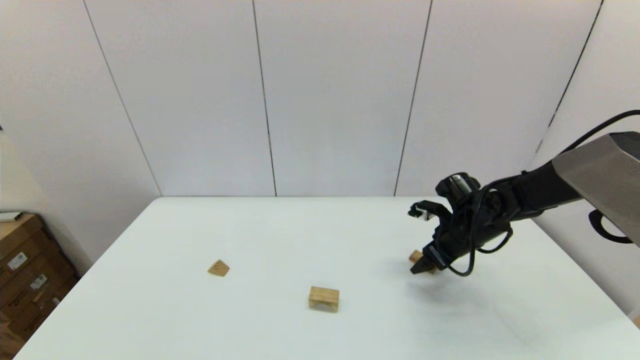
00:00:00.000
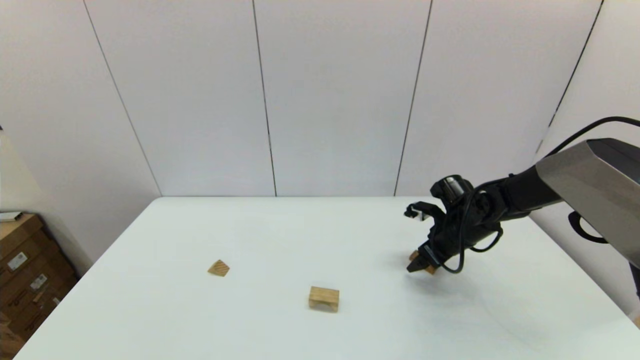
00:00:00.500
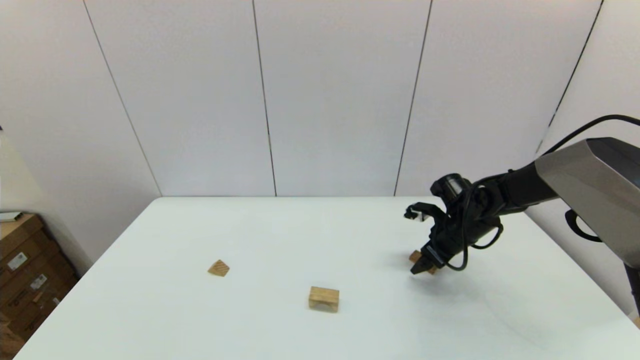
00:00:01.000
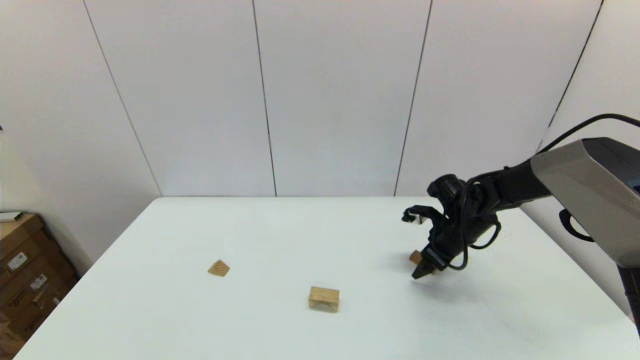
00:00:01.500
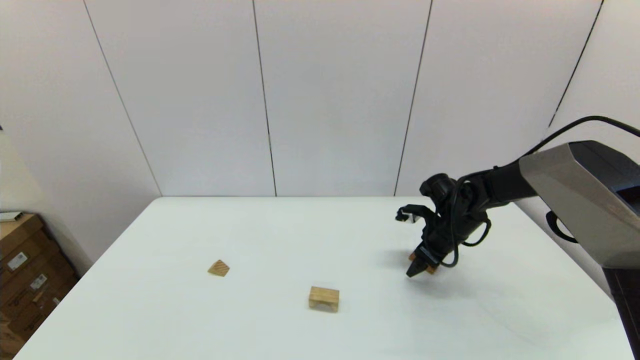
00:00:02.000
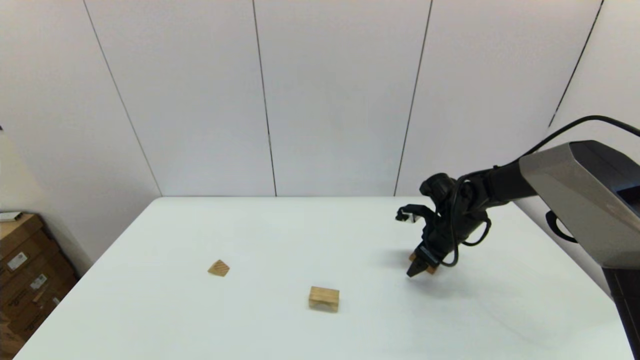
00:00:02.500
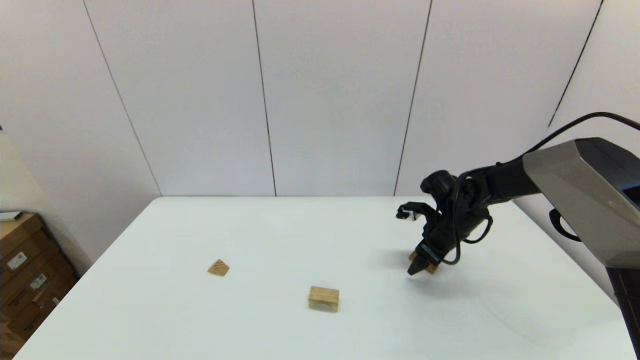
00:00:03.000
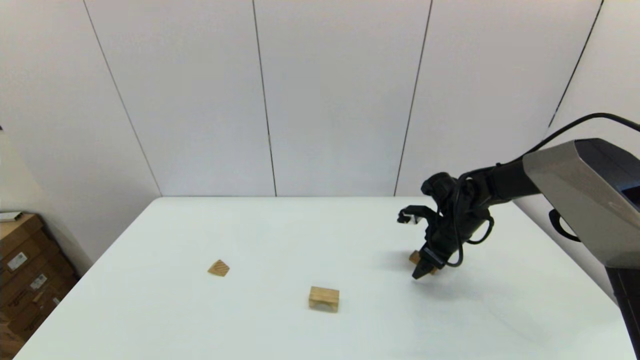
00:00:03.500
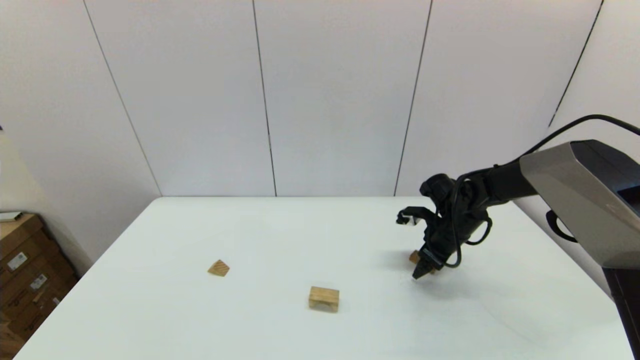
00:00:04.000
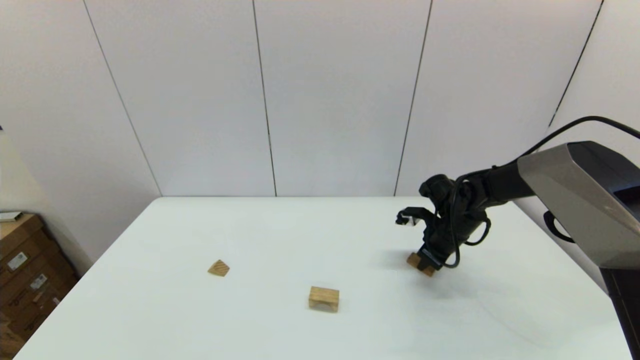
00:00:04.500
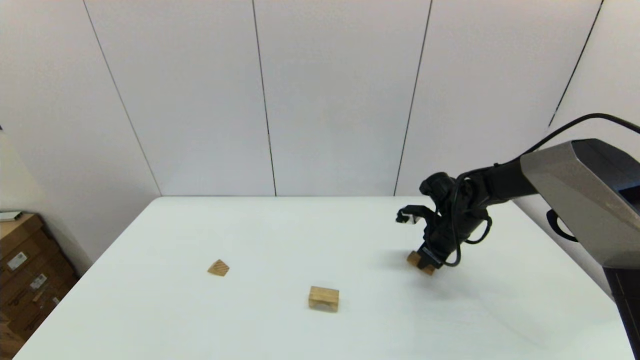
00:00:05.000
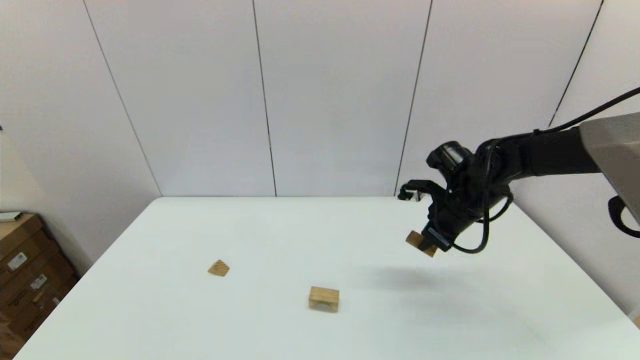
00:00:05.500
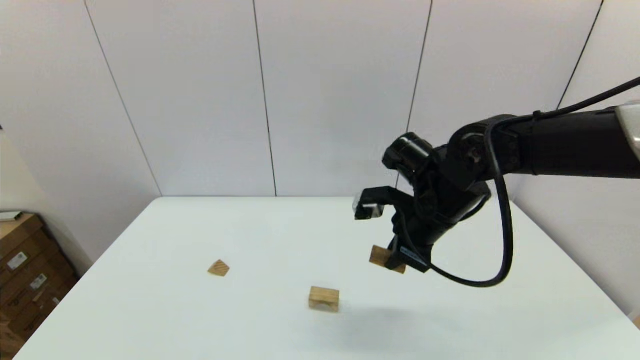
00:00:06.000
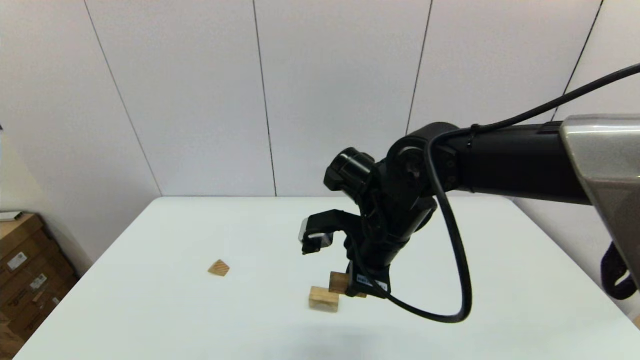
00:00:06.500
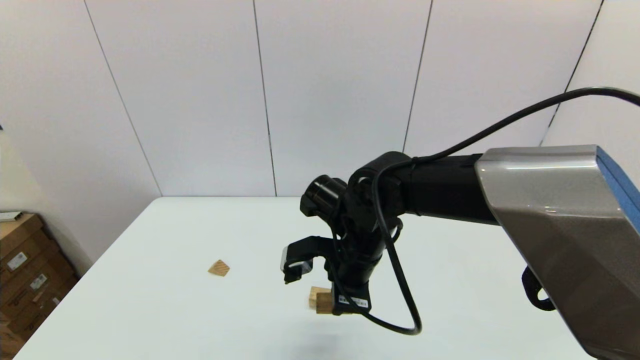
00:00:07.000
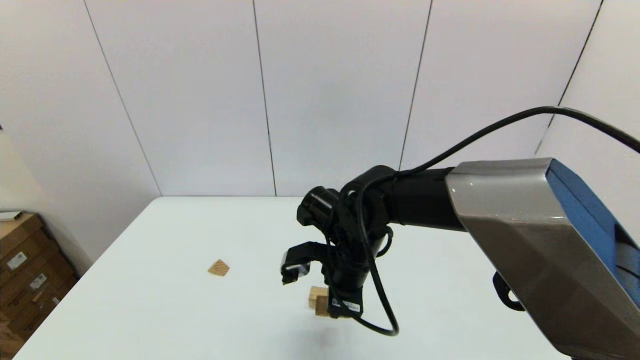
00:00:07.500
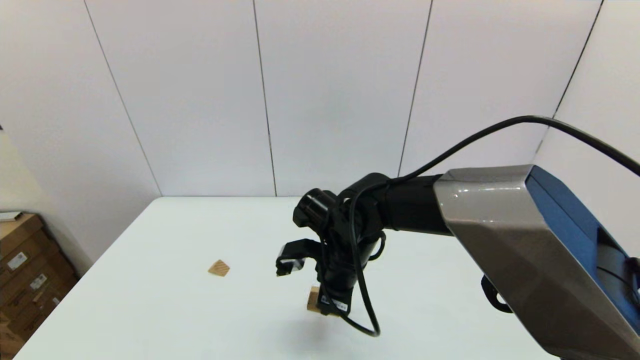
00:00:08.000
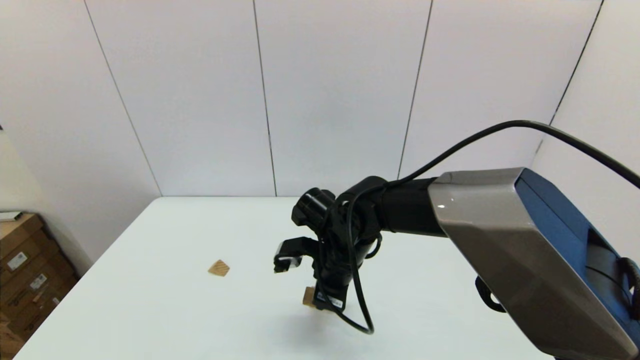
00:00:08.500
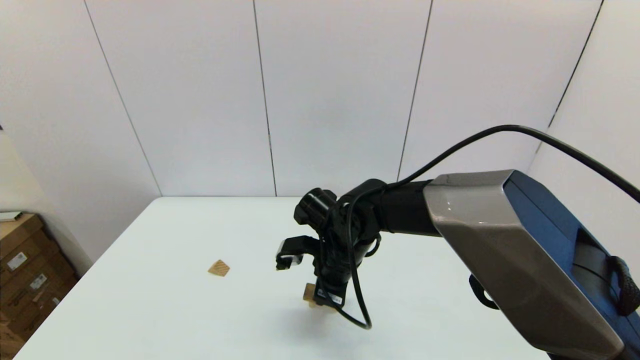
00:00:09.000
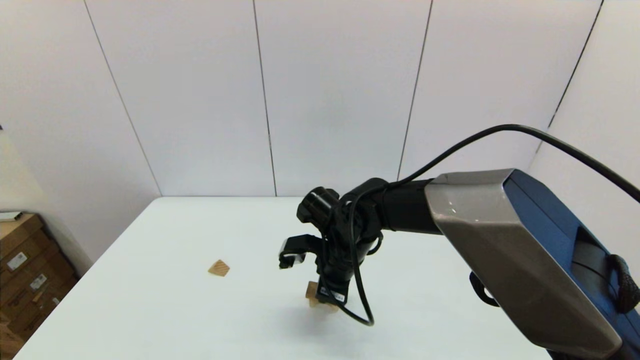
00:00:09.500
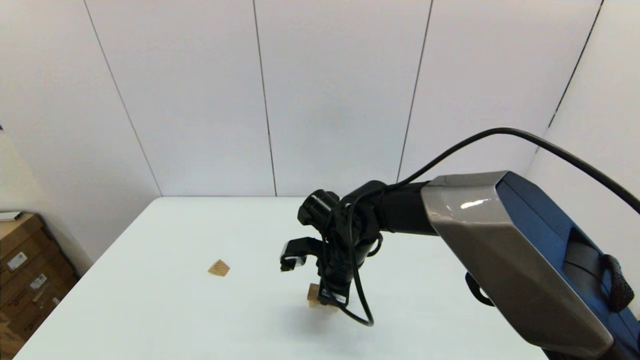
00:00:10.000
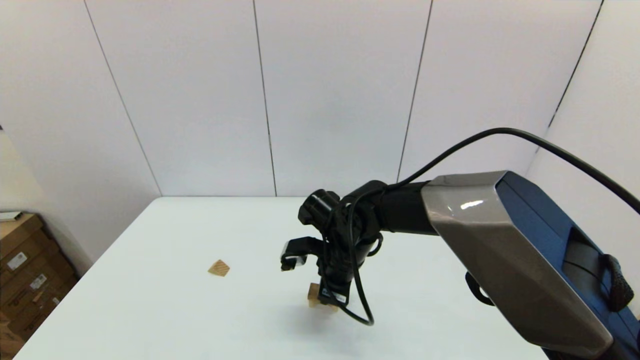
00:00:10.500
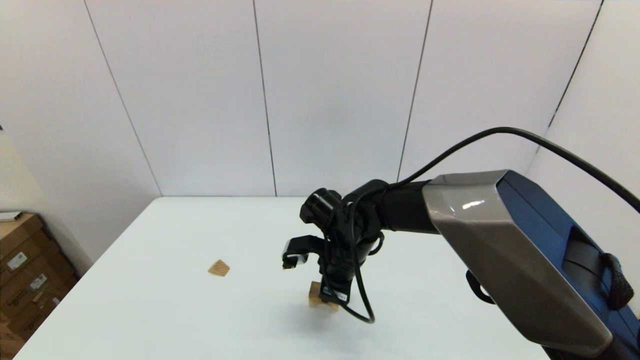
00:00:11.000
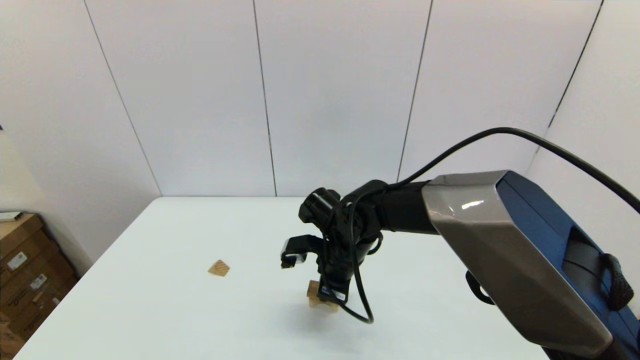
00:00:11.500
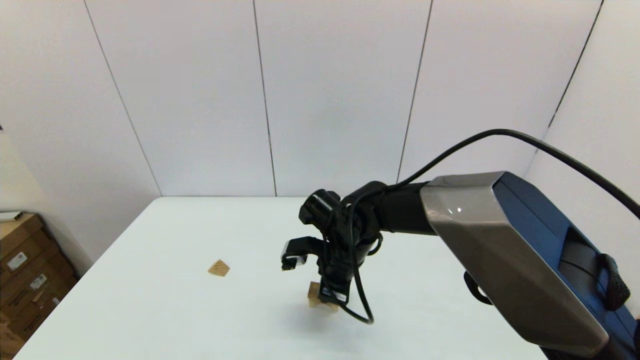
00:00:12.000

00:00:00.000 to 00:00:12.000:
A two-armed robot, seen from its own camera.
Task of the whole recording: place the arched building blocks in the center of the table, set up the rectangular building blocks, and then set up the triangular building blocks.
Step, 00:00:00.000 to 00:00:04.500: Grasp the box-shaped block with the right gripper.
00:00:00.000 to 00:00:02.000: There are only small adjustments of the grippers.
00:00:02.000 to 00:00:04.000: The two grippers keep their place.
00:00:04.000 to 00:00:06.000: The right gripper travels upward, to the left and backward by about 20 cm, and closes up.
00:00:06.000 to 00:00:08.000: The right gripper moves to the left and downward, roughly 15 cm.
00:00:08.000 to 00:00:10.000: There are only small adjustments of the grippers.
00:00:10.000 to 00:00:12.000: Neither gripper changes place.

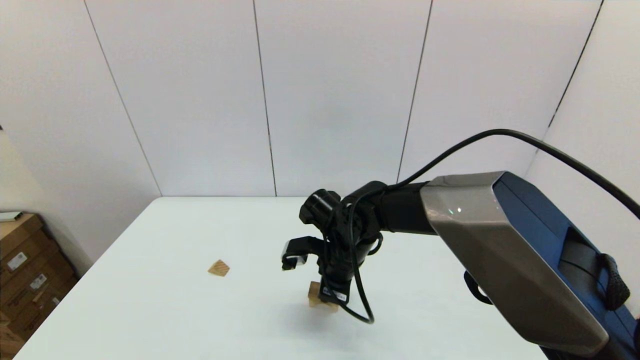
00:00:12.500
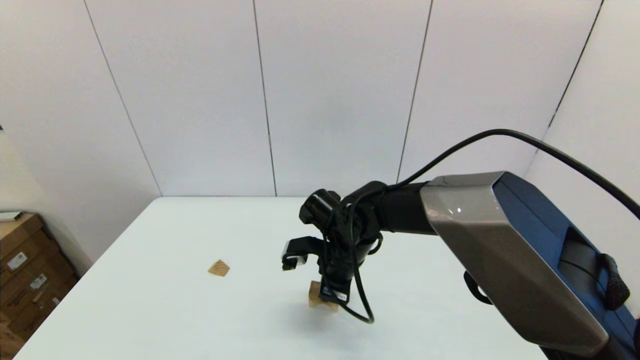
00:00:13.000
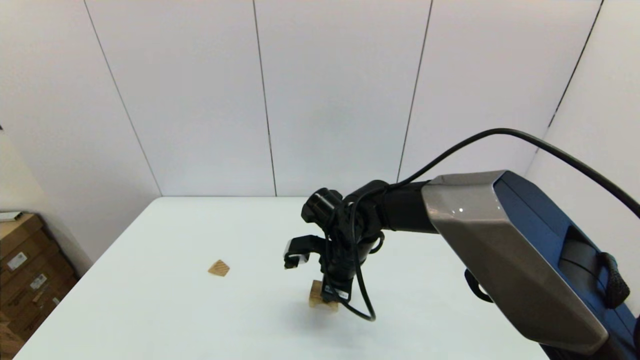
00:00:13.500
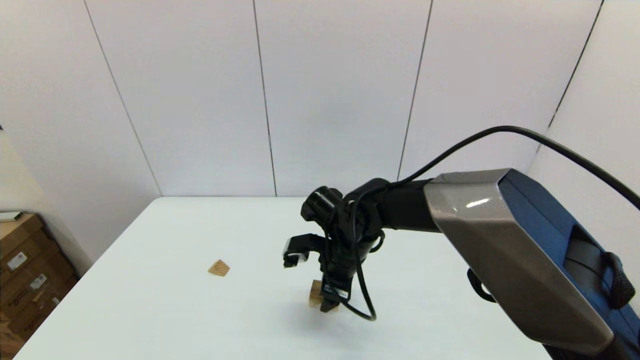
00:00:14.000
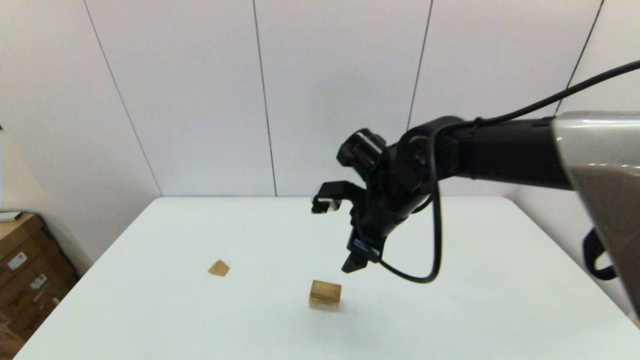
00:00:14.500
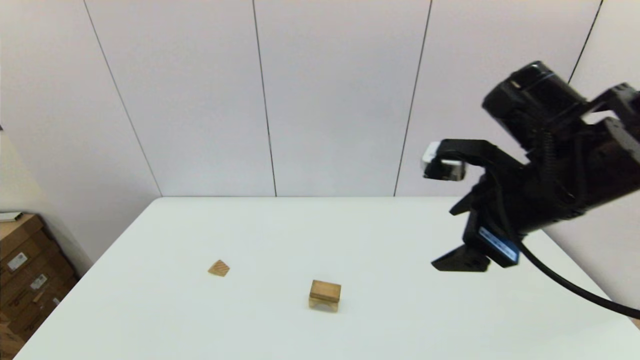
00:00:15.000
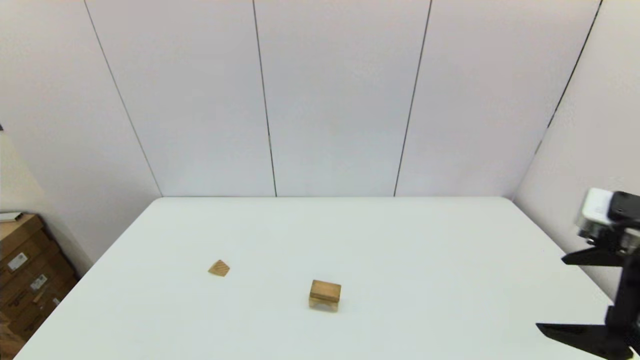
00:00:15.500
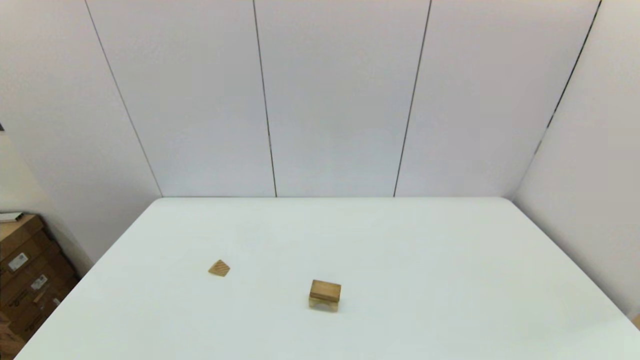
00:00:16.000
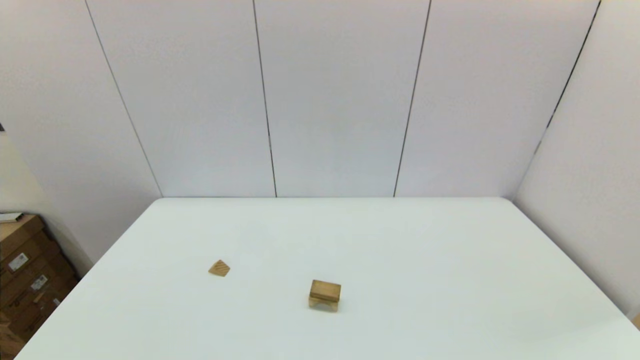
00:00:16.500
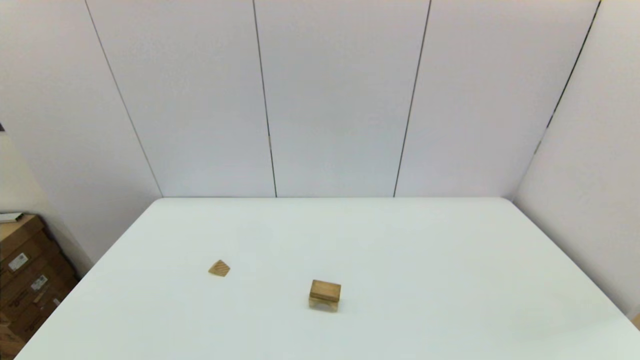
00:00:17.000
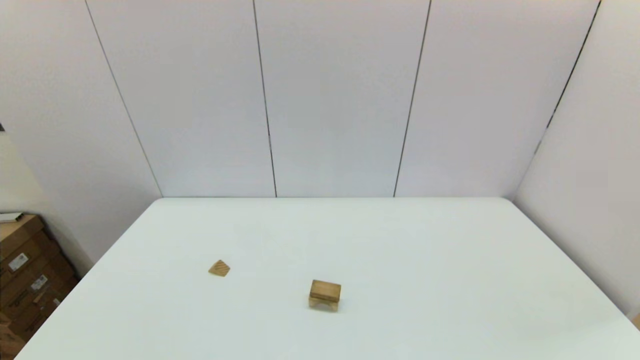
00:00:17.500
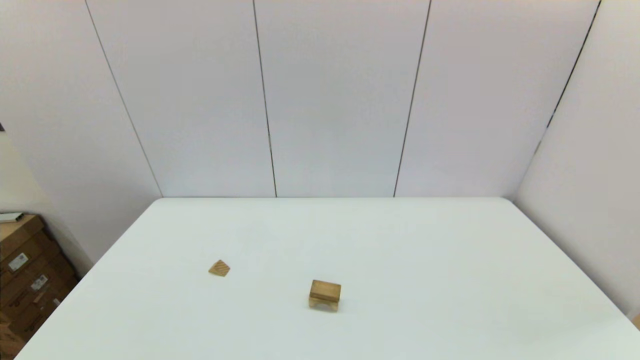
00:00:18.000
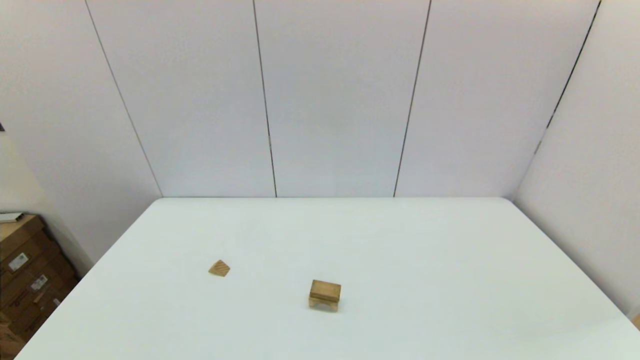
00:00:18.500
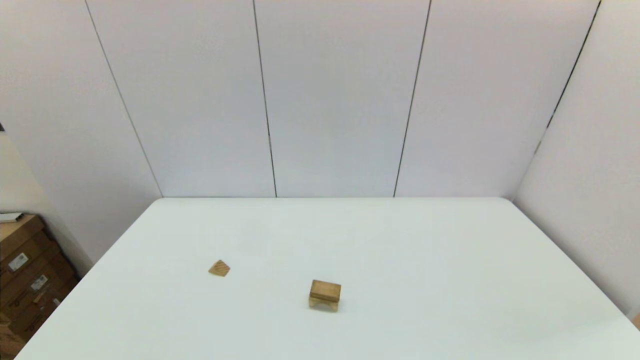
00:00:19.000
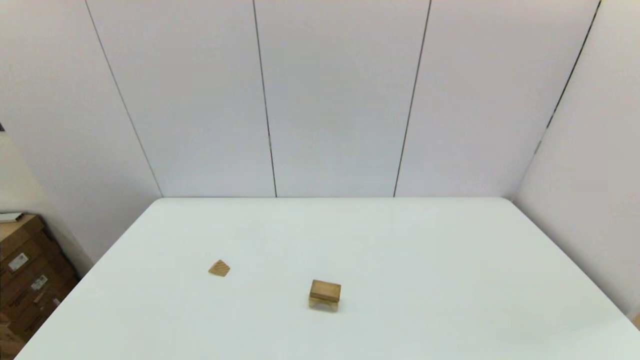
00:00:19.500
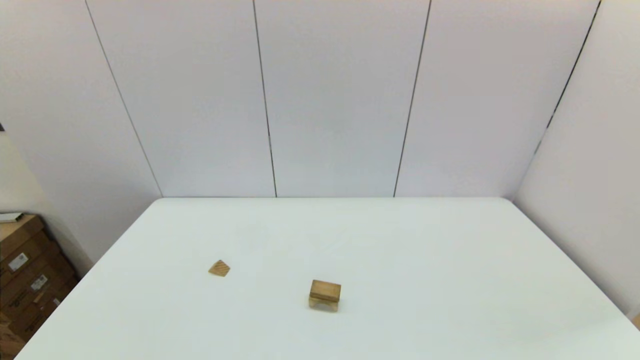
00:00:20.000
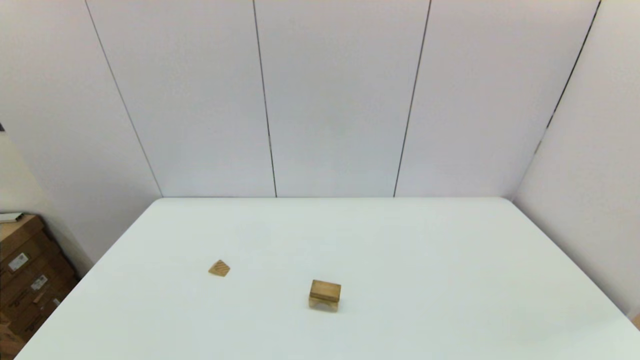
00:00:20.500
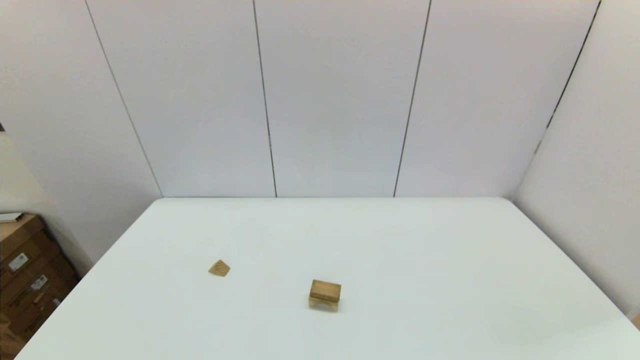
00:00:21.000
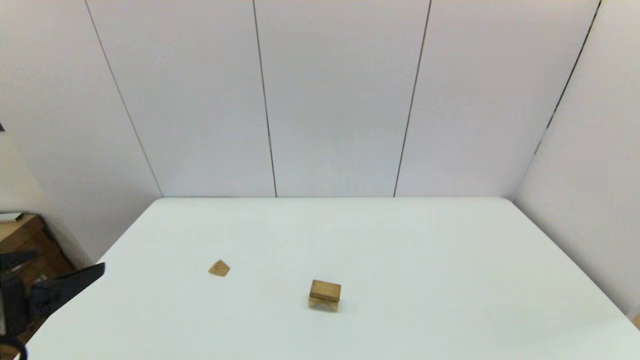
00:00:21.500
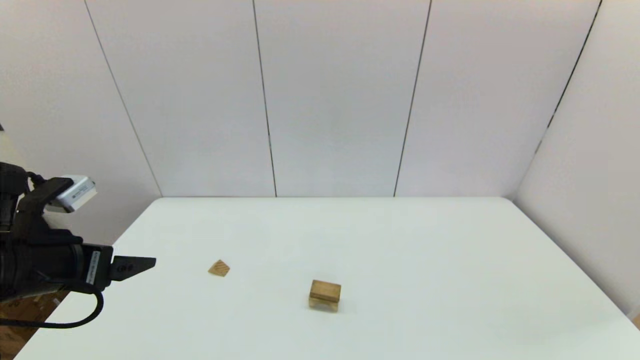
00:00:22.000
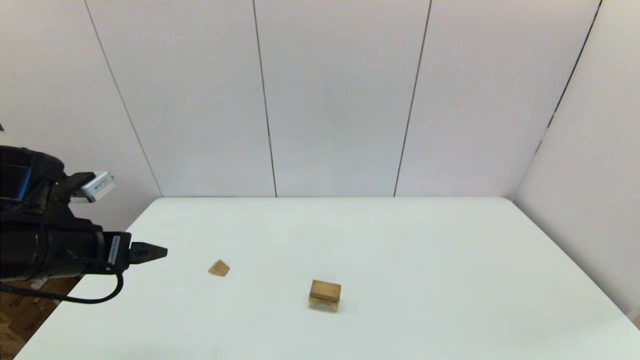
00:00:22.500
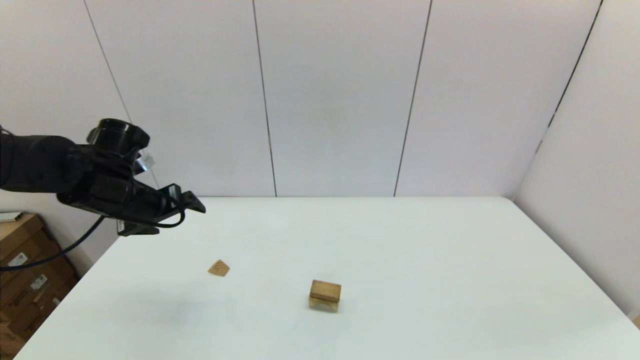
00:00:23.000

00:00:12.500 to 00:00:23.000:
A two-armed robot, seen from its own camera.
Task of the whole recording: place the arched building blocks in the center of the table, set up the rectangular building blocks, and then set up the triangular building blocks.
00:00:12.500 to 00:00:14.500: The right gripper moves upward and to the right, approximately 15 cm, and opens.
00:00:14.500 to 00:00:16.500: The right gripper moves backward and to the right, some 40 cm.
00:00:21.000 to 00:00:23.000: The left gripper goes about 35 cm forward.
